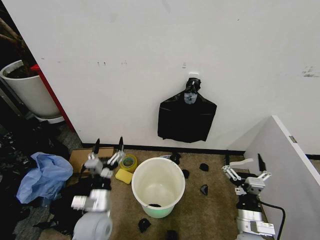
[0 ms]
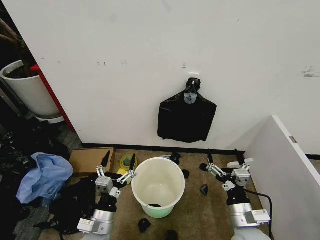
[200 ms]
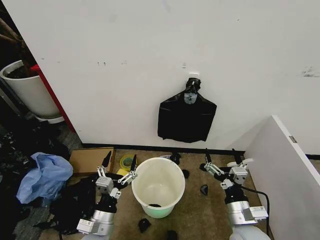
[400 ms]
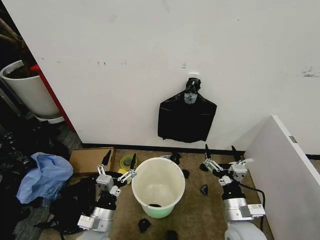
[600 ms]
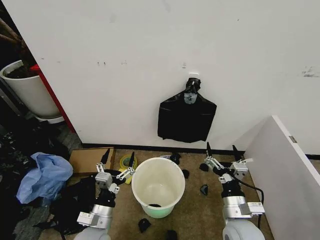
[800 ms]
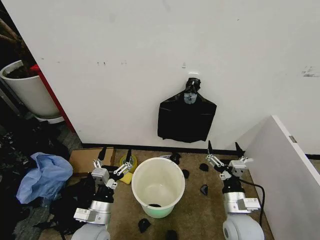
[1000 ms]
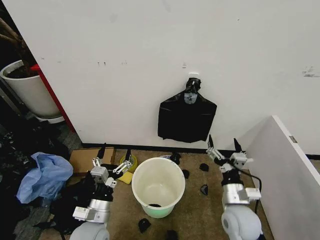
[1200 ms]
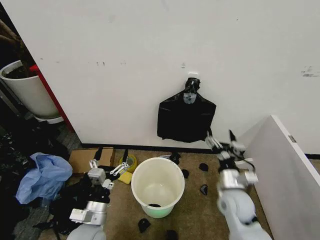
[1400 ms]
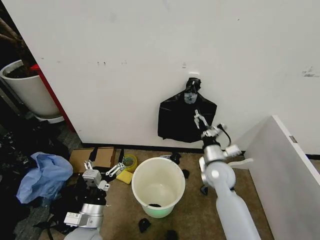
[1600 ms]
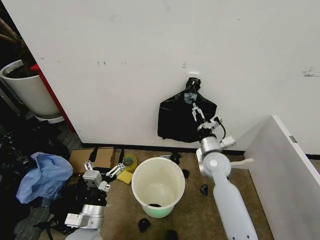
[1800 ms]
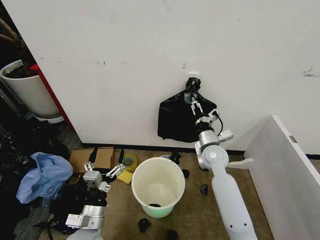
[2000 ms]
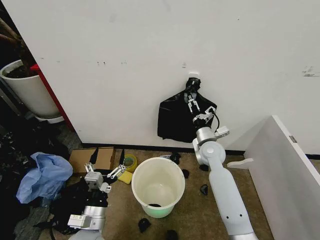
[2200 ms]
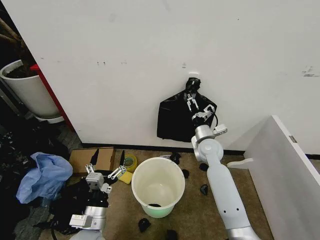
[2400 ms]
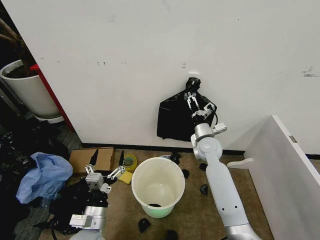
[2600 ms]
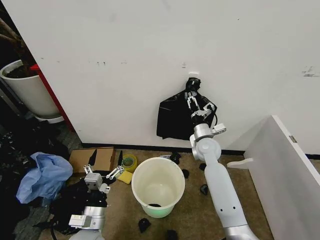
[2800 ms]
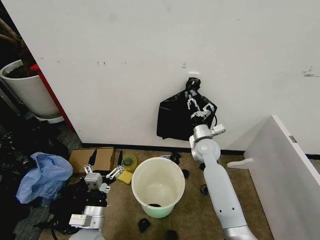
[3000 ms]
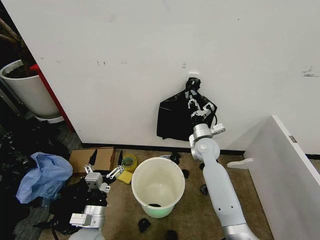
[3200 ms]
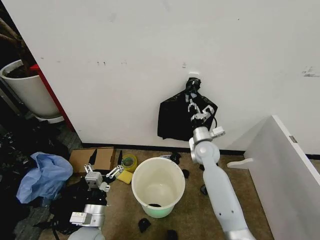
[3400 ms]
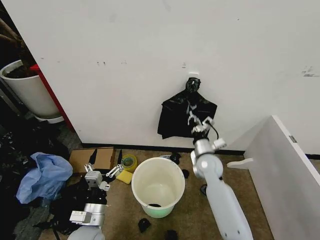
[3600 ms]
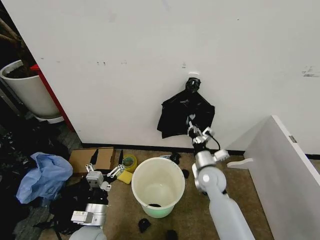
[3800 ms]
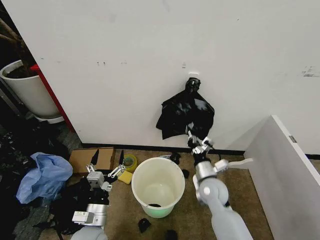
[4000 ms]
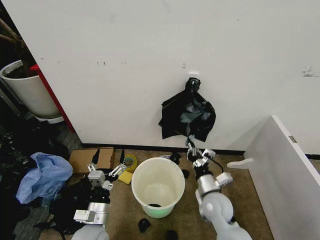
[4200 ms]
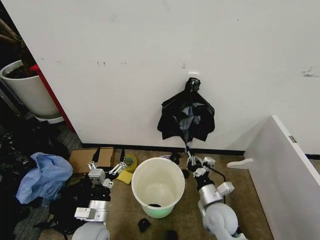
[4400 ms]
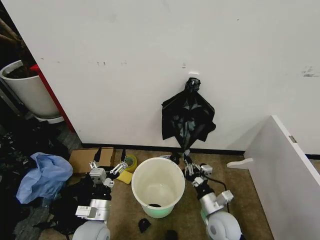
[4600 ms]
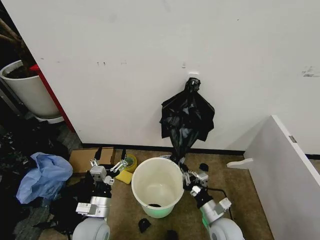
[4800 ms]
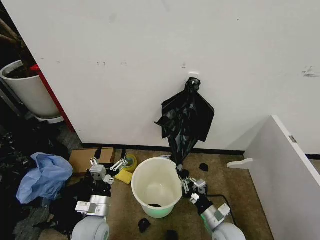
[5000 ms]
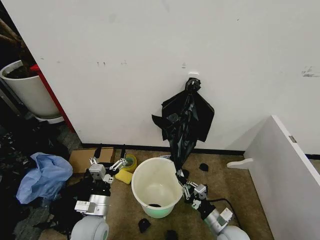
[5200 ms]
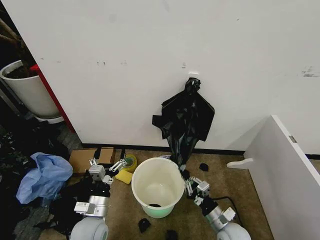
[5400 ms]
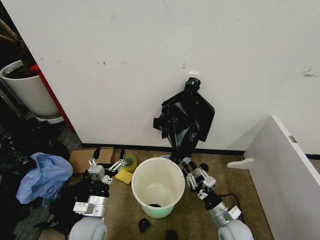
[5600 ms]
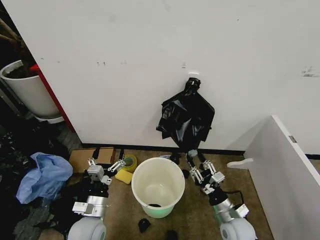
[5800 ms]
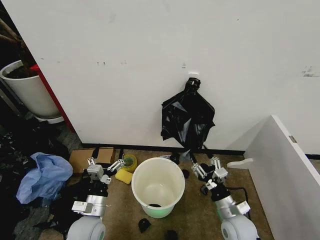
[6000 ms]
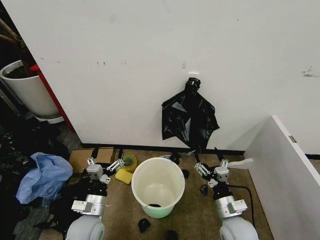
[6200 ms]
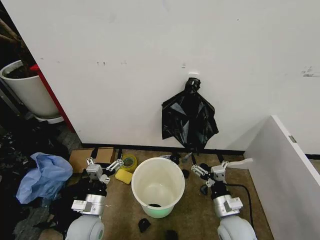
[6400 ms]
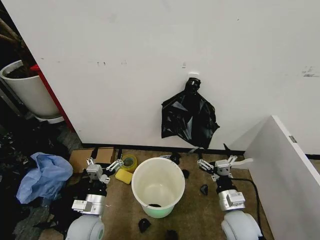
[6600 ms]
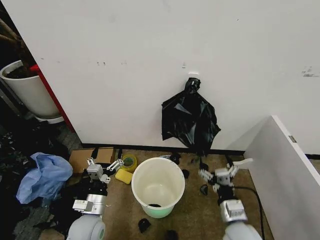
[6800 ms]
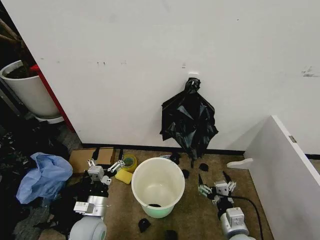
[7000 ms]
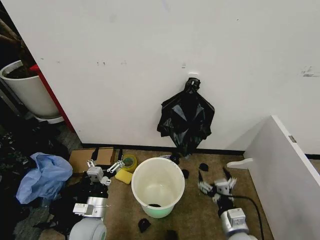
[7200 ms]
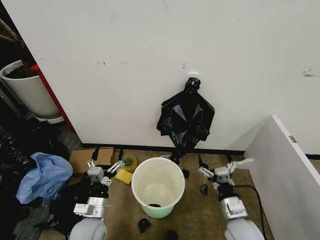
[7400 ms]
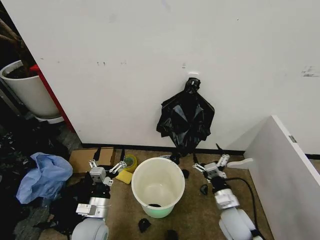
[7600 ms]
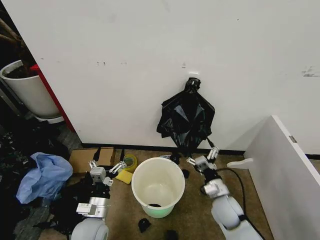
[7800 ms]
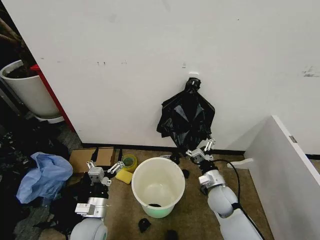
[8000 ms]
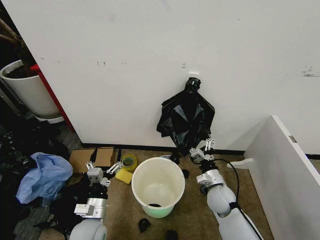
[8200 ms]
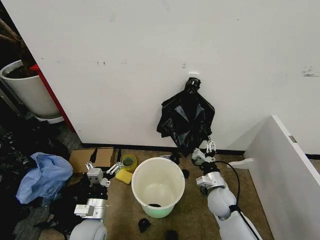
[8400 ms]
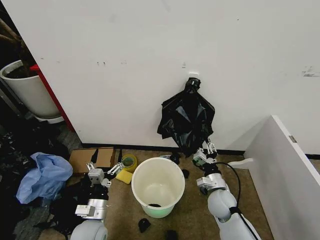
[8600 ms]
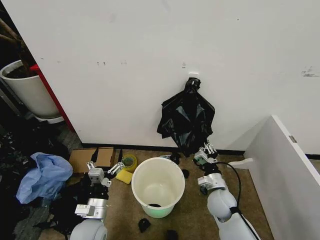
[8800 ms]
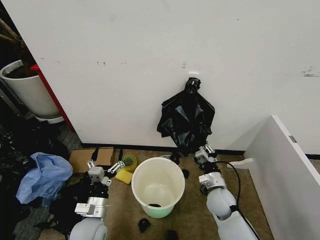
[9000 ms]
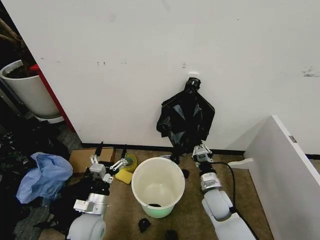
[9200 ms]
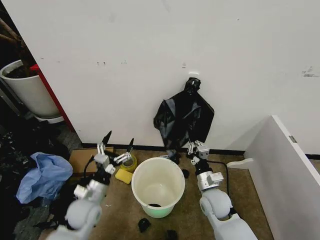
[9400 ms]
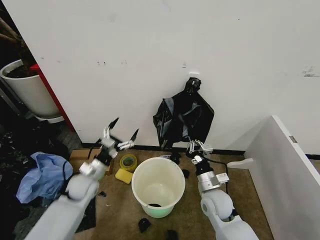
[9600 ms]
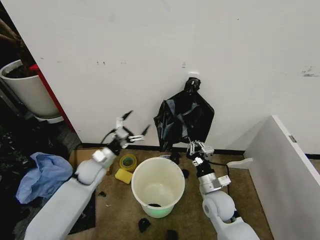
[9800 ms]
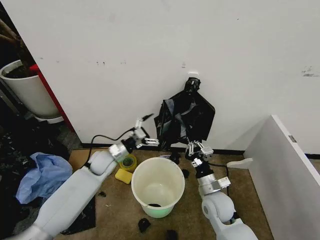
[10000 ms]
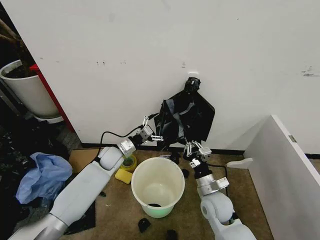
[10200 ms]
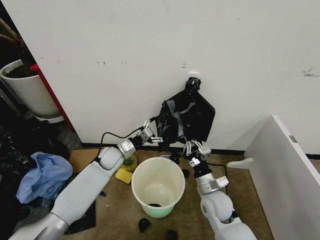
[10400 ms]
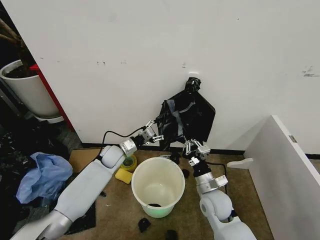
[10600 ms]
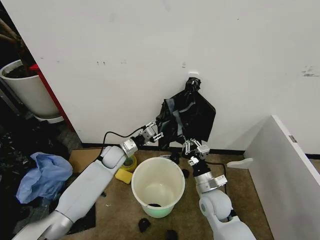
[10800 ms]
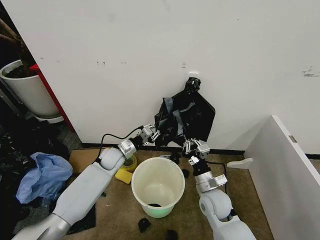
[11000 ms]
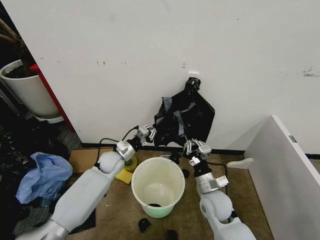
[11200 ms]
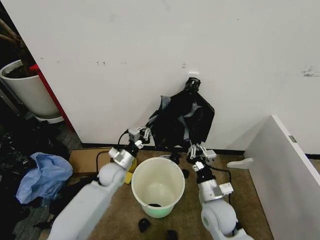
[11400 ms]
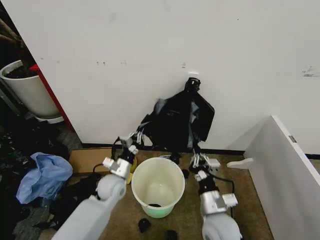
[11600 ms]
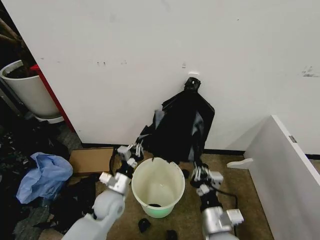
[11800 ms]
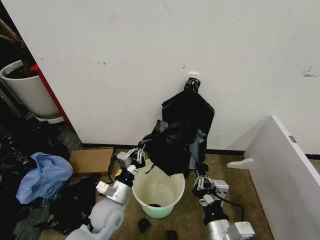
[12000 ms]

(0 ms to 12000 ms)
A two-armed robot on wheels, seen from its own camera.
Task of the whole recording: Place the garbage bag over the trash bin.
1600 ms - 3000 ms: The right gripper is displaced forward by approximately 10 cm, and closes.
3000 ms - 4400 ms: The right gripper is displaced backward and downward by about 20 cm.
4400 ms - 6000 ms: The right gripper shifts approximately 5 cm to the right, and opens up.
6000 ms - 7600 ms: The right gripper goes backward and returns, some 5 cm each way, and opens.
7600 ms - 9000 ms: The right gripper travels forward by about 5 cm, and closes.
9000 ms - 10400 ms: The left gripper moves forward, some 25 cm; the right gripper shifts by about 5 cm.
10400 ms - 12000 ms: The right gripper moves backward and upward, about 20 cm. The left gripper goes roughly 20 cm backward, and closes up.

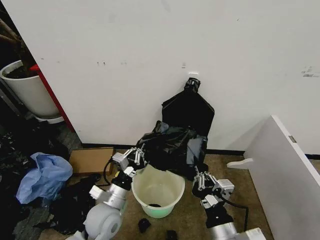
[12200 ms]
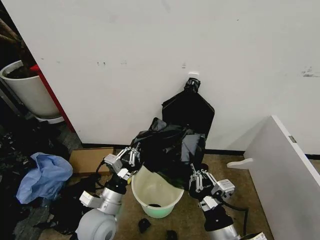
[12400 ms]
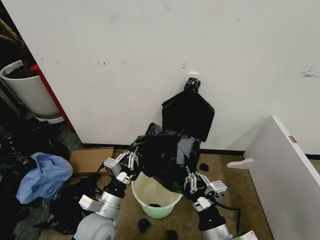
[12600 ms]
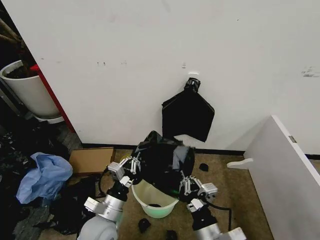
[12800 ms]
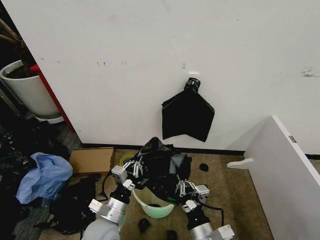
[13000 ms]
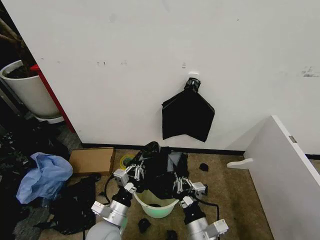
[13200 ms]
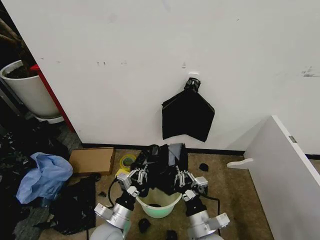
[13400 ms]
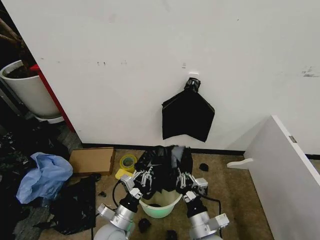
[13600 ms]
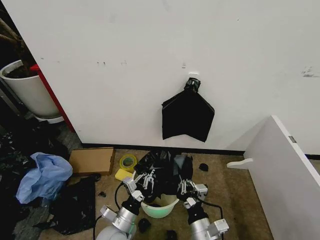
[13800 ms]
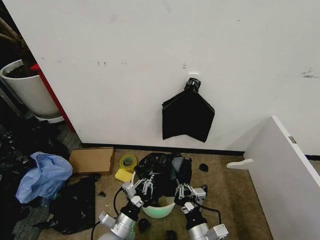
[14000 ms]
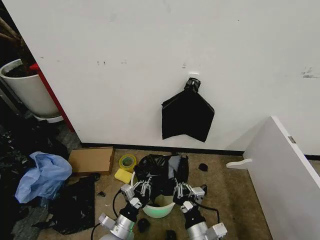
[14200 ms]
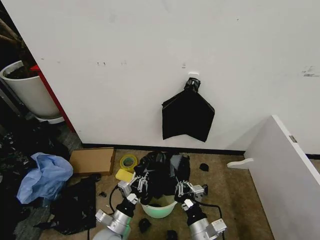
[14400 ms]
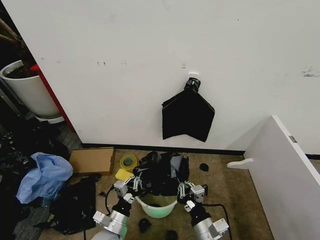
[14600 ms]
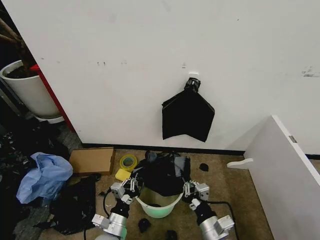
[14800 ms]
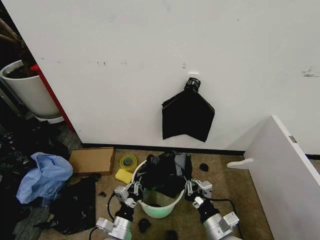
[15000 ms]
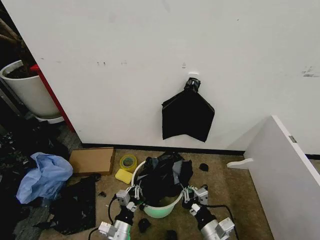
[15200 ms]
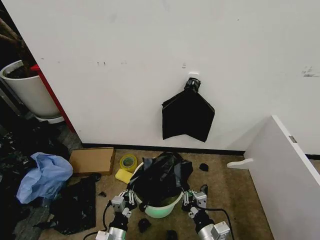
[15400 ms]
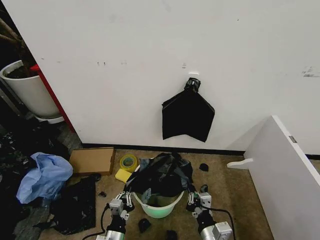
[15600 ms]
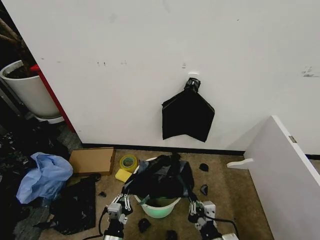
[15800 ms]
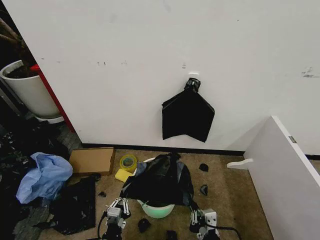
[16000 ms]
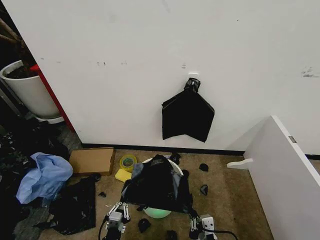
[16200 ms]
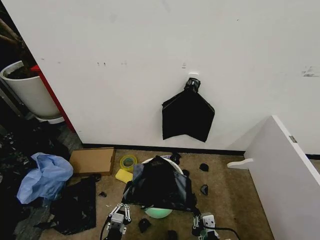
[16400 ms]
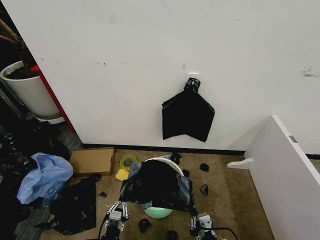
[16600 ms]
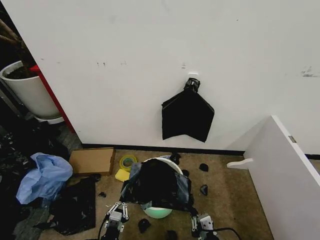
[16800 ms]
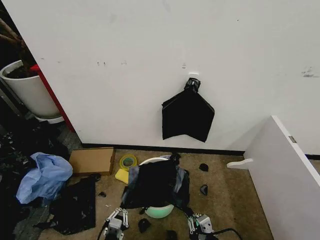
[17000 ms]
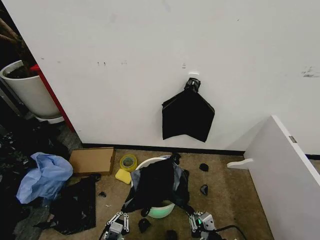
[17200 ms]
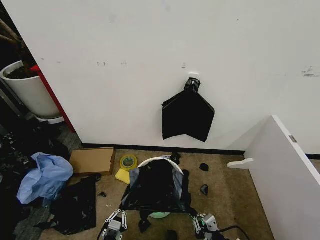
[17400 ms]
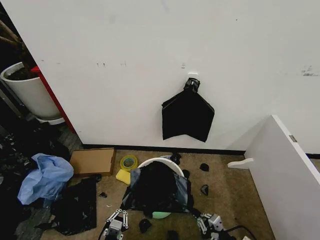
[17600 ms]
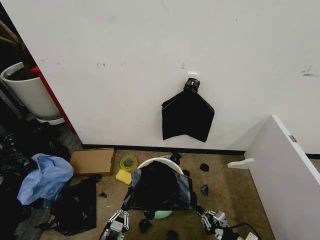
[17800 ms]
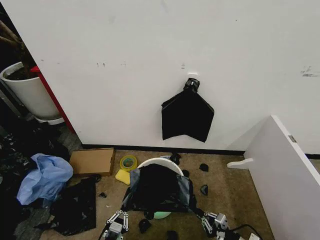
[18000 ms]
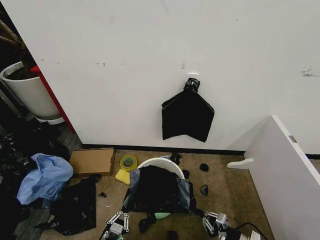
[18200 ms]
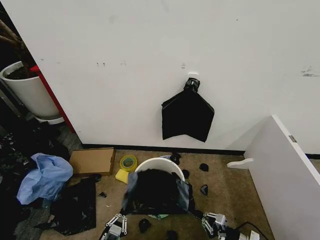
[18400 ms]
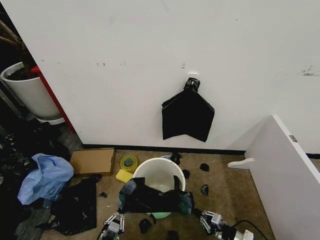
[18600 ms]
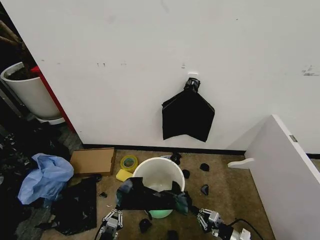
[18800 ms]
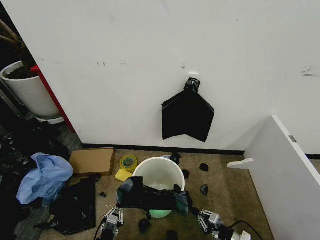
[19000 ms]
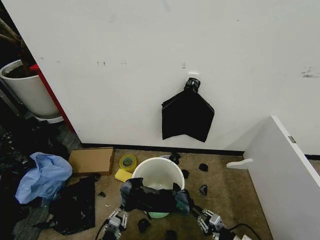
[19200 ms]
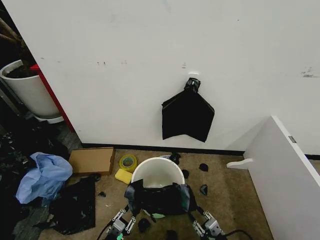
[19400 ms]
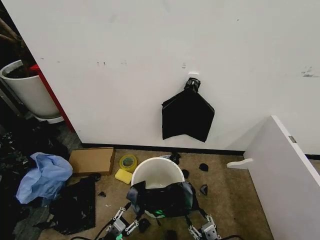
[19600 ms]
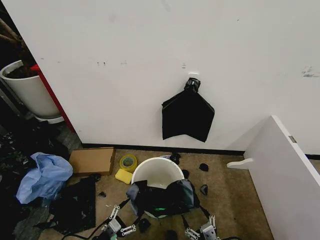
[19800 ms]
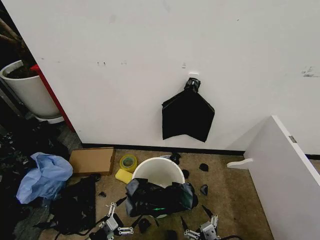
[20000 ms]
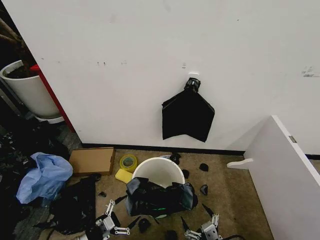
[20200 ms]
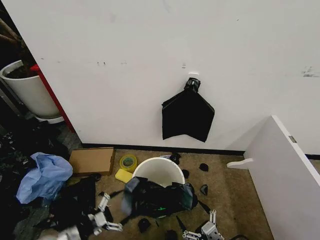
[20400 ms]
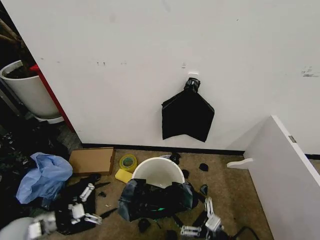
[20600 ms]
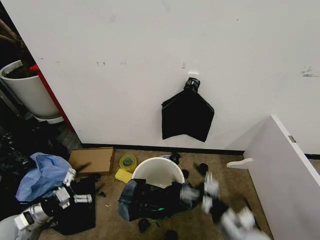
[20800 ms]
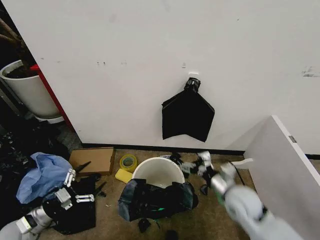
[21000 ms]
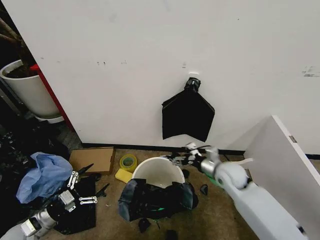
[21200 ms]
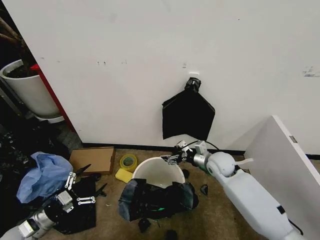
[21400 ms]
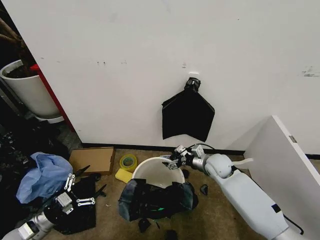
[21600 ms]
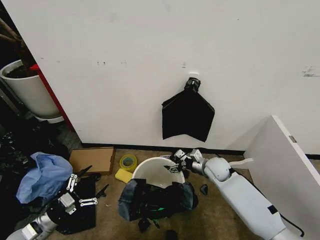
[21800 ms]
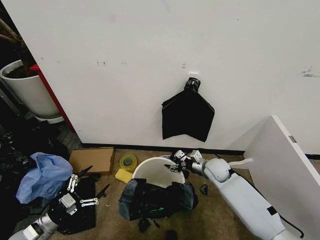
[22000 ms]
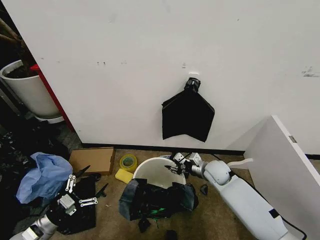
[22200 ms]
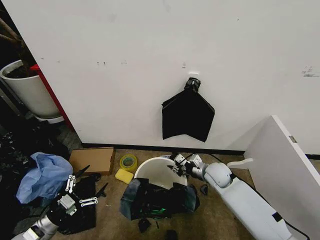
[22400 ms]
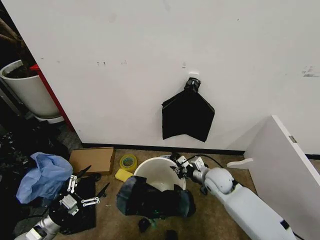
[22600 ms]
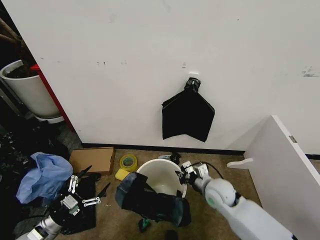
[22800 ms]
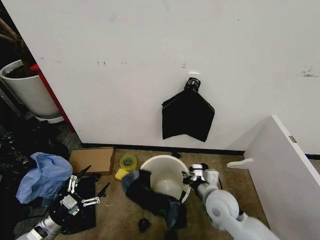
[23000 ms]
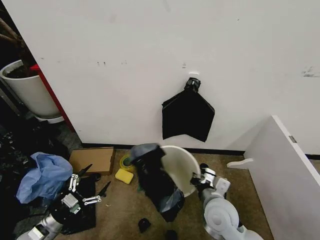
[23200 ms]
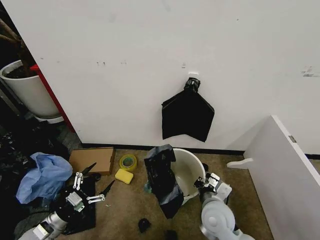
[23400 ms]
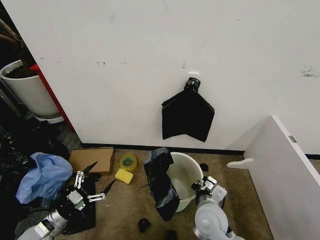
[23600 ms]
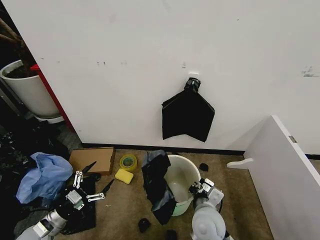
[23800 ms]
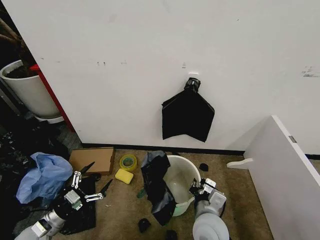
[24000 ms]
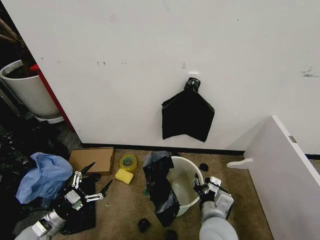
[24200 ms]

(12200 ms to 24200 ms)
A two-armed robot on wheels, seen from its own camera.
Task of the whole recording: Place the garbage bag over the trash bin.
12200 ms - 13800 ms: Both grippers move downward, some 10 cm.
13800 ms - 15200 ms: The right gripper travels to the right by approximately 5 cm. The left gripper changes place by some 5 cm.
15200 ms - 16600 ms: The right gripper moves backward, roughly 5 cm. The left gripper heads downward and backward, covering roughly 10 cm.
16600 ms - 18200 ms: The right gripper moves to the right and downward, some 20 cm.
18200 ms - 19800 ms: The right gripper travels to the left, backward and upward by about 15 cm, and opens. The left gripper is displaced to the left and forward by roughly 10 cm, and opens its fingers.
19800 ms - 21200 ms: The right gripper shifts approximately 30 cm forward, while the left gripper goes some 20 cm to the left, upward and forward.
21200 ms - 22600 ms: The right gripper heads downward, covering some 5 cm, and closes.
22600 ms - 24200 ms: The right gripper travels backward by roughly 20 cm, and opens up.
